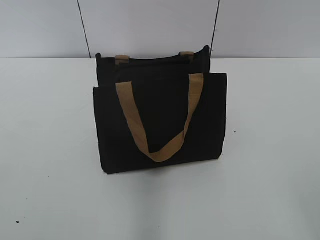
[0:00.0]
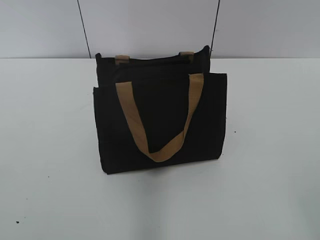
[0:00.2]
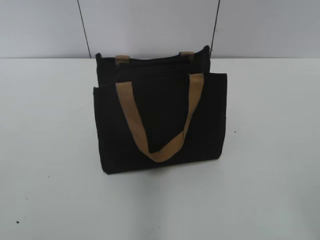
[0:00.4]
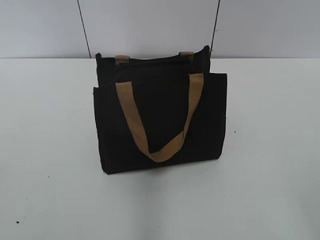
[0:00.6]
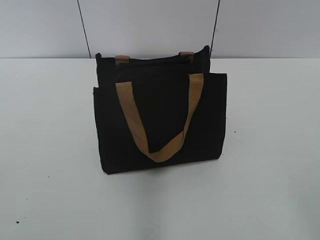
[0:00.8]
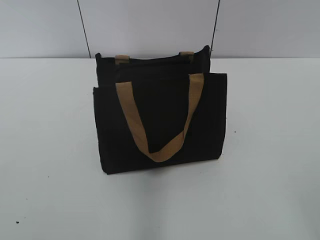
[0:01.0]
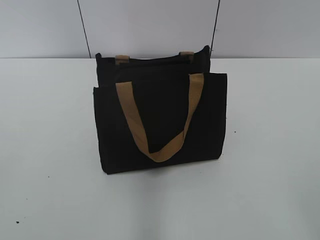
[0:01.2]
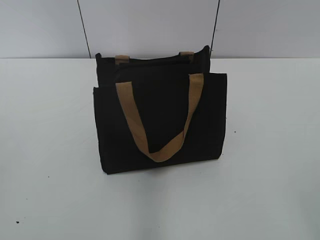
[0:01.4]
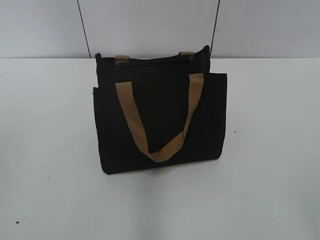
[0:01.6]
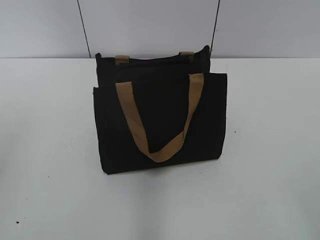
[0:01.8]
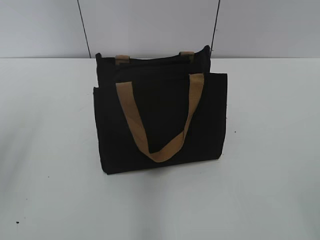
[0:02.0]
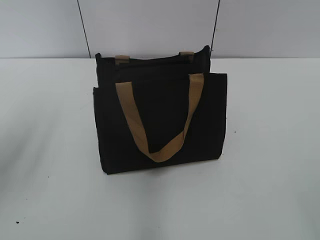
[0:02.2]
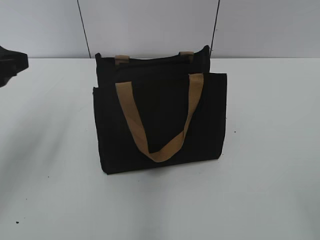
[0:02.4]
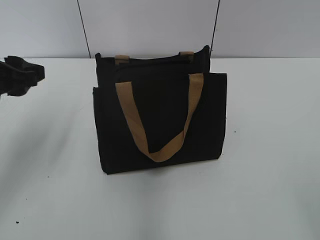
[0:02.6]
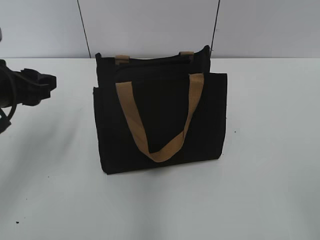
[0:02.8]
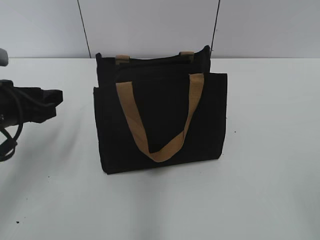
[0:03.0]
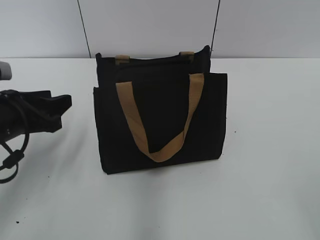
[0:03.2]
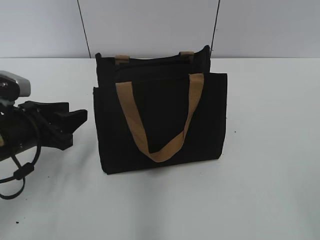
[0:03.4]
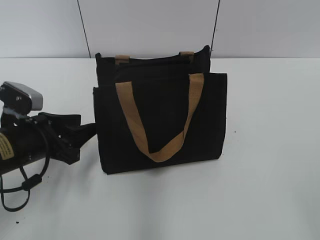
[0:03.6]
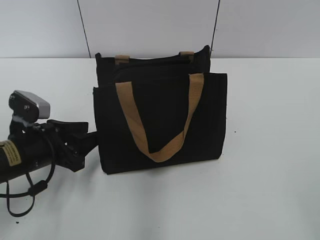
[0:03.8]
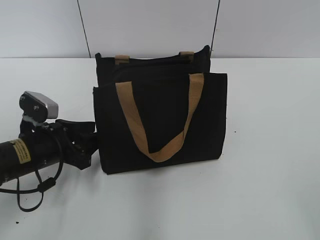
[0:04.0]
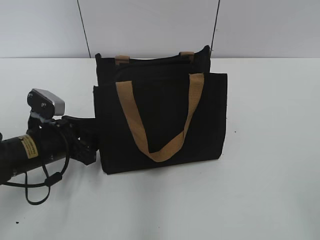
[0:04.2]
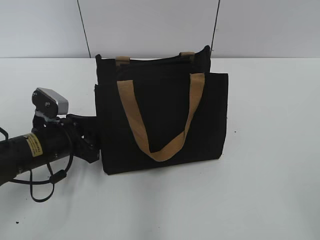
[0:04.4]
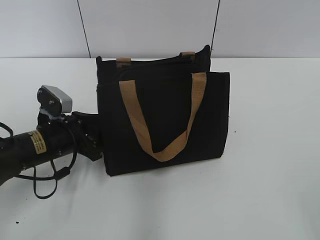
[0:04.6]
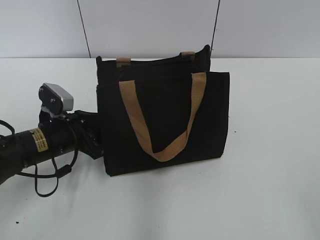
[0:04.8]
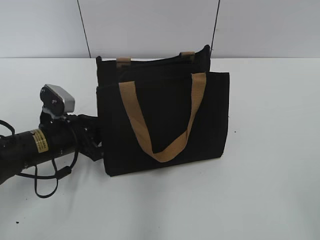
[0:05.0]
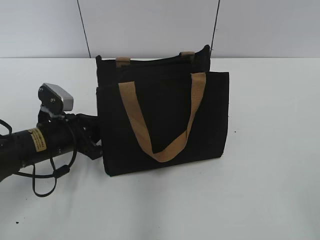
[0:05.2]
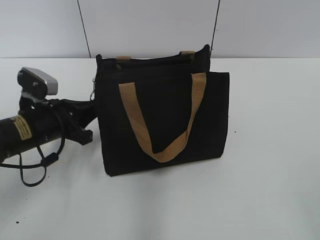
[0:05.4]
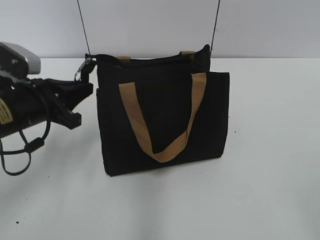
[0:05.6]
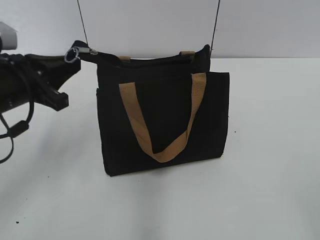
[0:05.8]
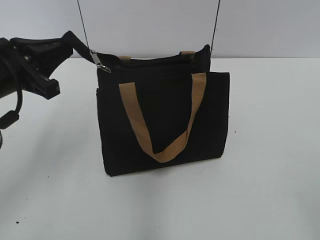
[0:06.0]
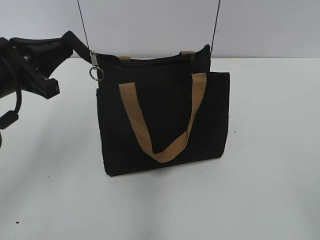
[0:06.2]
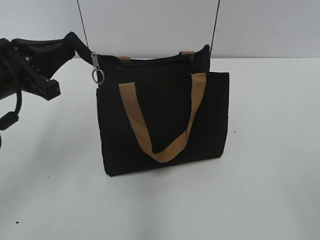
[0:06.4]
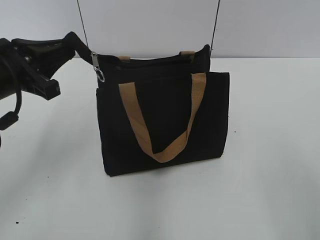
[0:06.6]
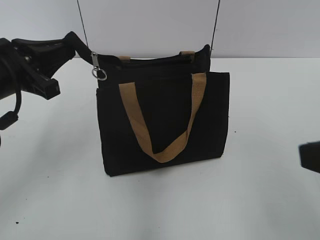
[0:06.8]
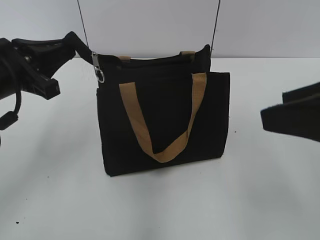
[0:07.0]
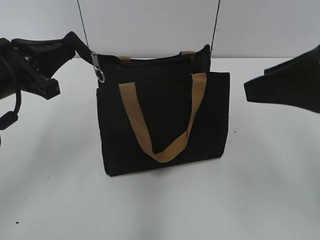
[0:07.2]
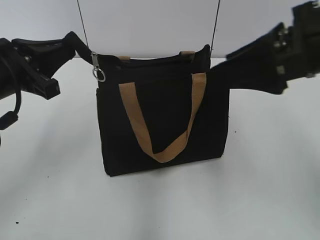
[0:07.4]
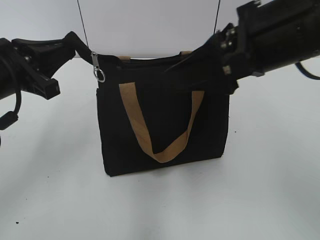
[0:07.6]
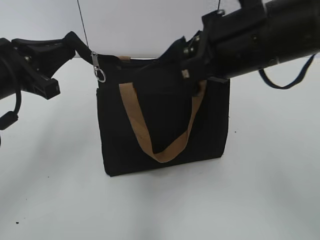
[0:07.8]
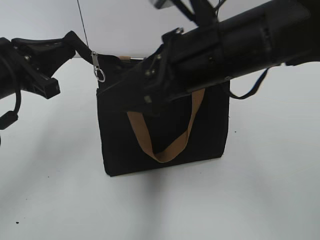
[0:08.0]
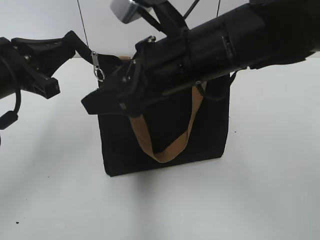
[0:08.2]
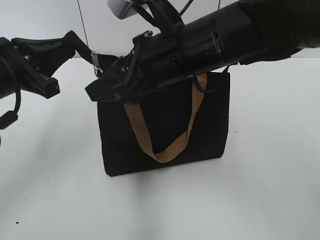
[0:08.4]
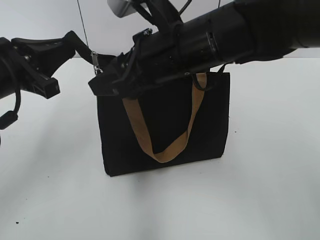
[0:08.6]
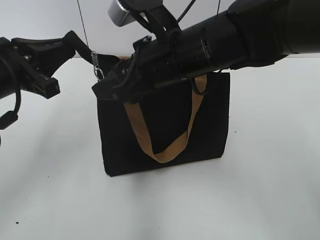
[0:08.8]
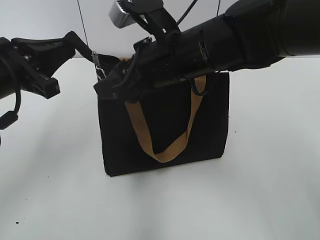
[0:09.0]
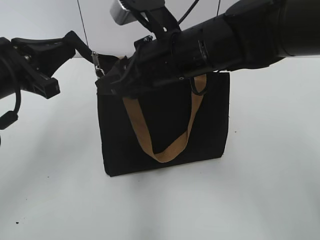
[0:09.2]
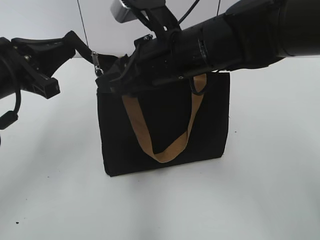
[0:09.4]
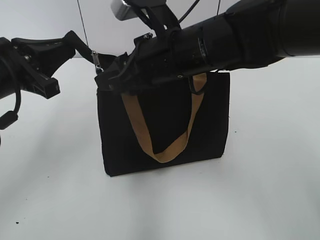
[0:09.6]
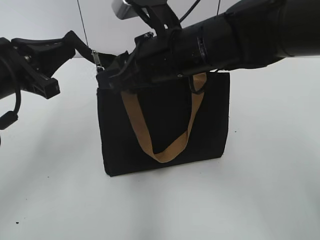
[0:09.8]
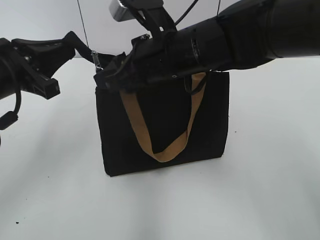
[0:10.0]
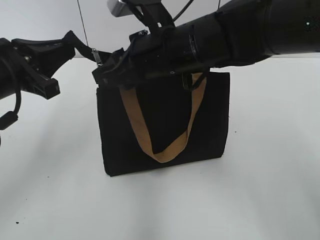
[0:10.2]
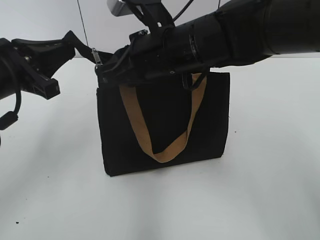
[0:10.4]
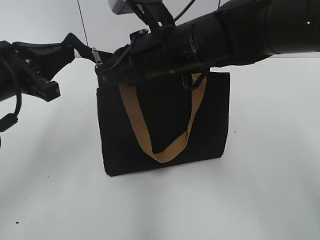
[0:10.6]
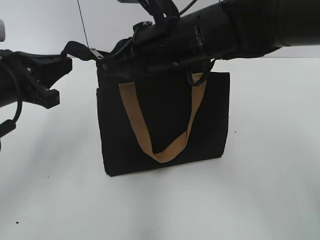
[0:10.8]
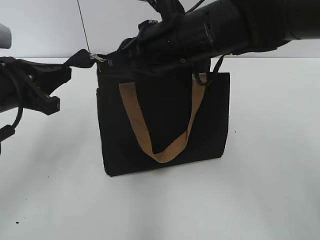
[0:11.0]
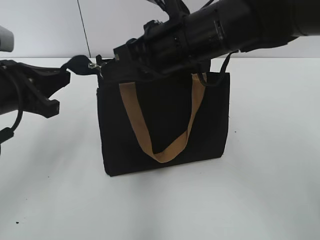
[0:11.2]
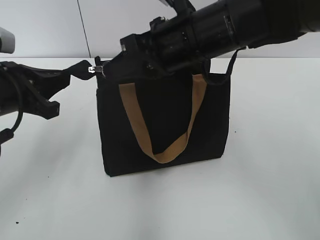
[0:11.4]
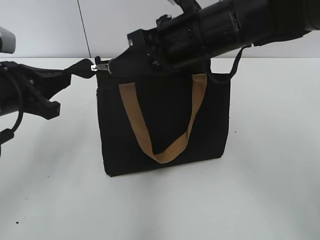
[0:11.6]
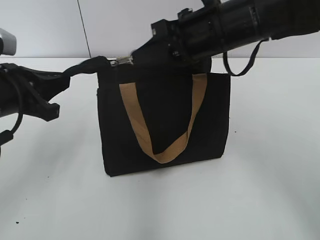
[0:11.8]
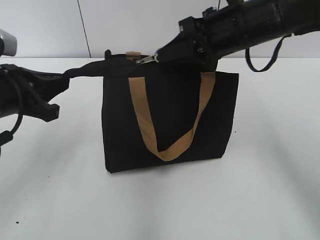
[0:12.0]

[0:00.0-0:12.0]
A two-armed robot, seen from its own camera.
0:01.6 to 0:03.0: The left gripper is displaced forward, downward and to the right by approximately 25 cm.
0:03.0 to 0:04.4: The left gripper is displaced downward by approximately 10 cm.
0:04.4 to 0:06.0: The left gripper is displaced upward by roughly 15 cm, and closes up.
0:06.0 to 0:07.6: The right gripper moves forward and to the left, roughly 30 cm.
0:07.6 to 0:09.0: The right gripper goes some 15 cm to the left, downward and forward.
0:09.0 to 0:10.4: The right gripper closes its fingers.
0:10.4 to 0:12.0: The right gripper shifts roughly 10 cm to the right.

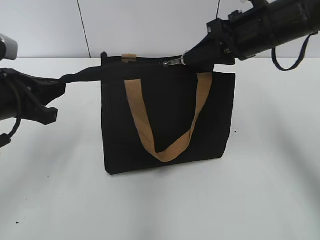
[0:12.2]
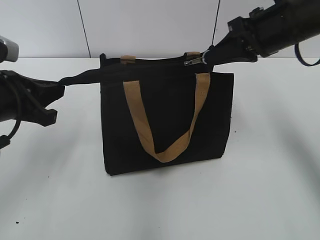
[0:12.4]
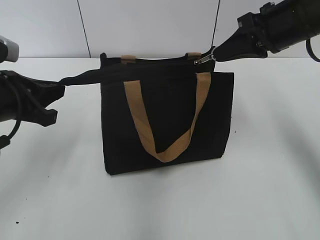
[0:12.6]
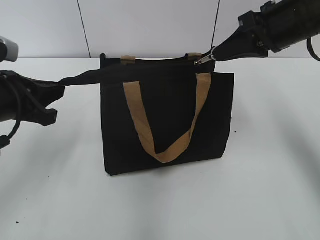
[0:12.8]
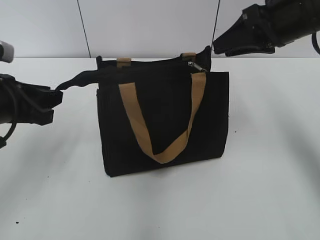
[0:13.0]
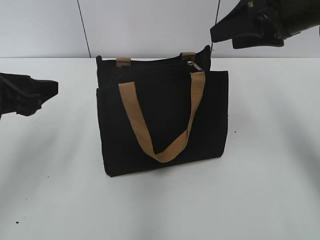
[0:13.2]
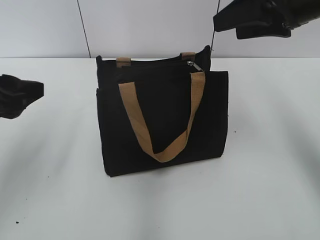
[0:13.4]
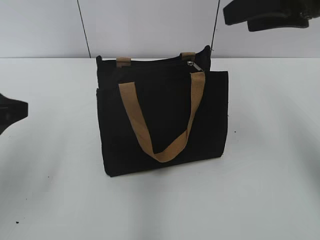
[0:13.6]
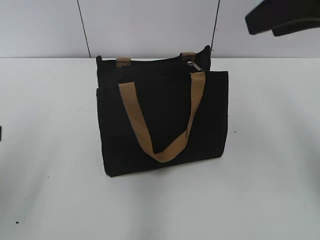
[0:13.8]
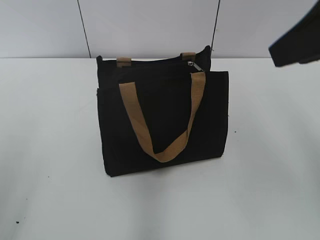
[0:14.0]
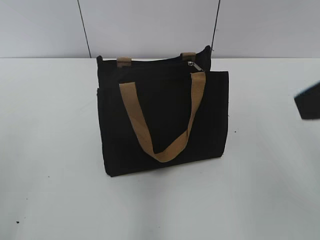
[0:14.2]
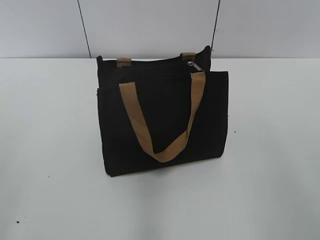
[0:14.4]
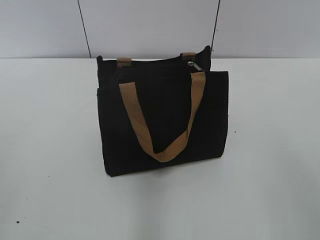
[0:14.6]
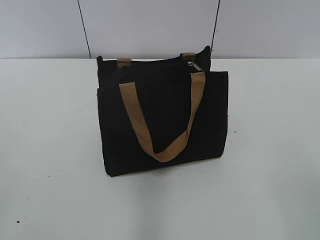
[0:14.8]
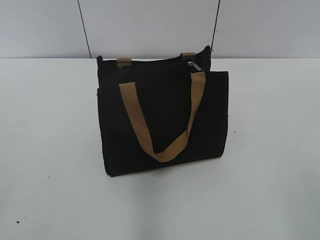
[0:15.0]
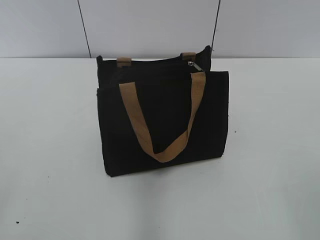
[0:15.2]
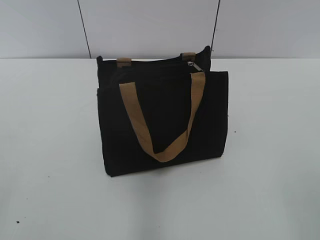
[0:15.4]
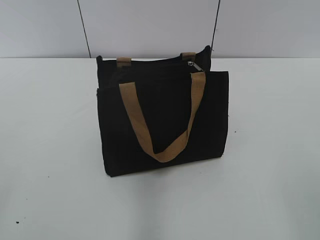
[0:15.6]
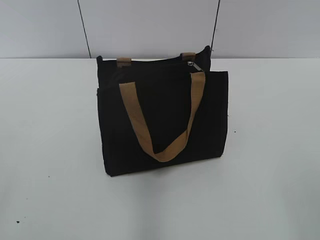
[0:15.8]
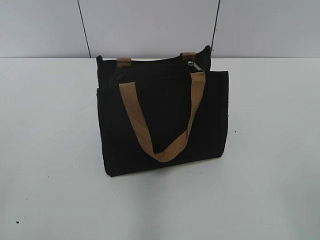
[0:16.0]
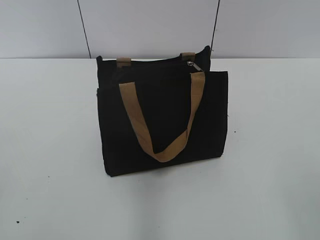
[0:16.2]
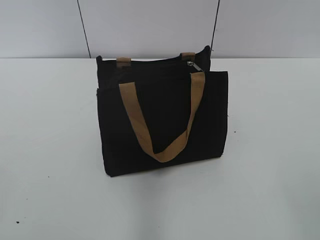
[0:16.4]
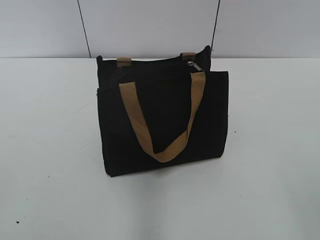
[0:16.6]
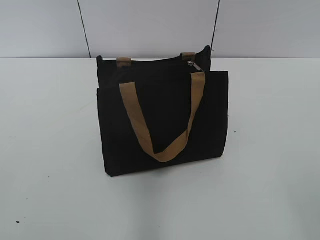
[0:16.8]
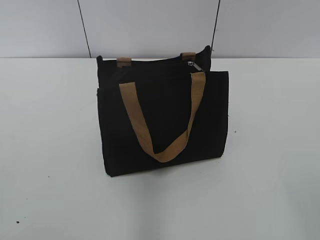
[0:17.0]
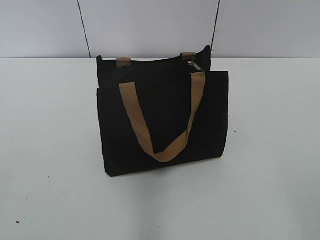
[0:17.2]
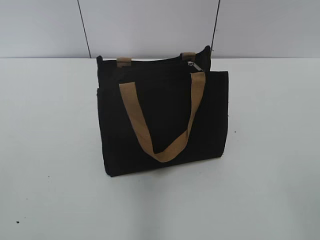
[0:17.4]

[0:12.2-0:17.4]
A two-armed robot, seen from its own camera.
0:12.2 to 0:14.0: The left gripper travels backward and upward by approximately 15 cm, and opens up; the right gripper is displaced backward, upward and to the right by roughly 20 cm, and opens its fingers.
0:14.0 to 0:15.6: The right gripper travels backward and downward by some 25 cm.

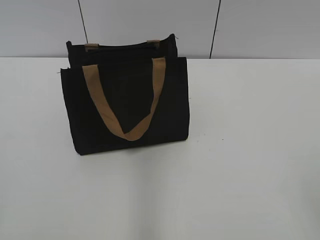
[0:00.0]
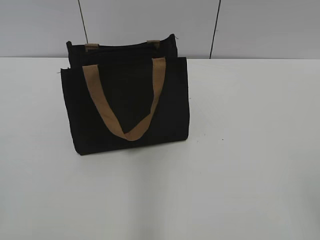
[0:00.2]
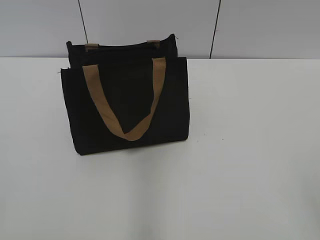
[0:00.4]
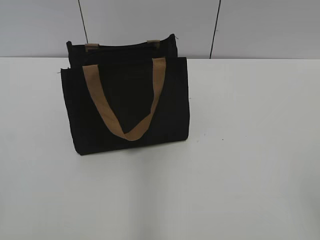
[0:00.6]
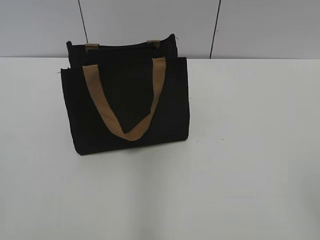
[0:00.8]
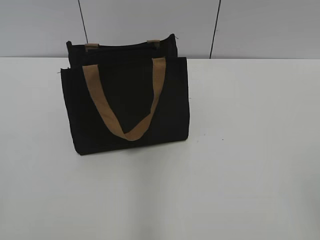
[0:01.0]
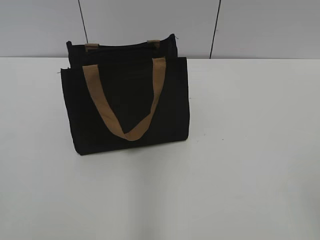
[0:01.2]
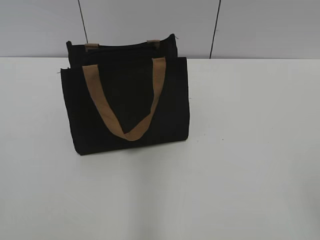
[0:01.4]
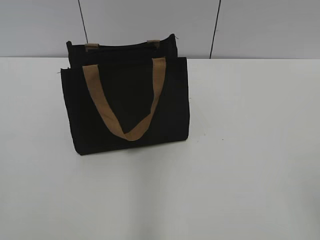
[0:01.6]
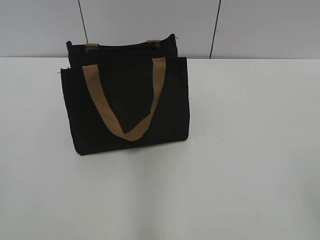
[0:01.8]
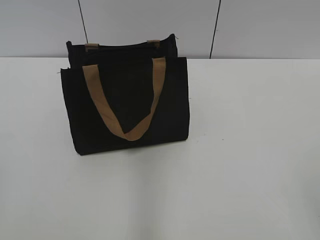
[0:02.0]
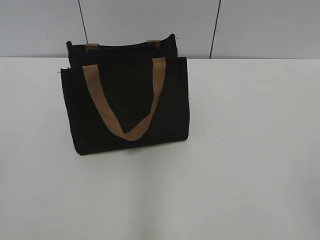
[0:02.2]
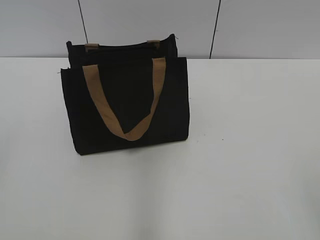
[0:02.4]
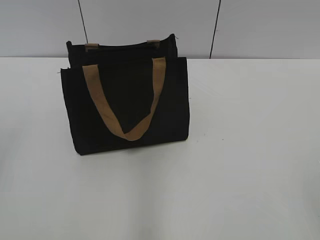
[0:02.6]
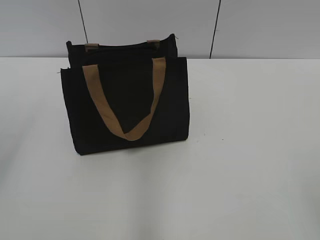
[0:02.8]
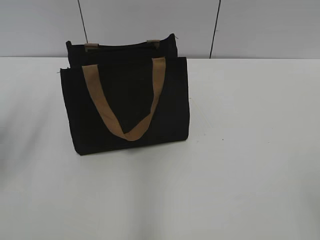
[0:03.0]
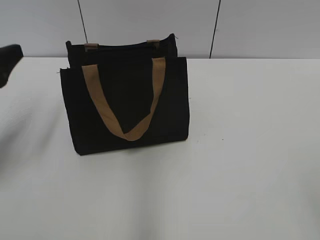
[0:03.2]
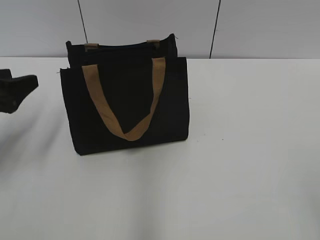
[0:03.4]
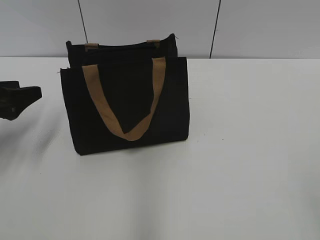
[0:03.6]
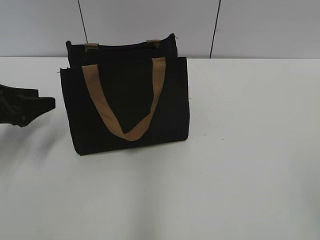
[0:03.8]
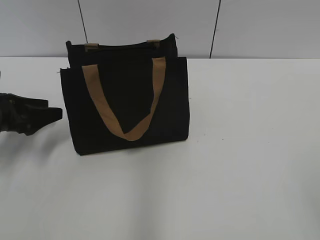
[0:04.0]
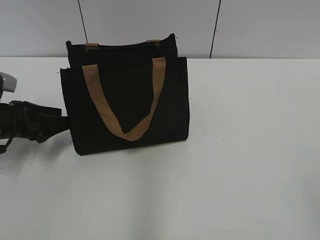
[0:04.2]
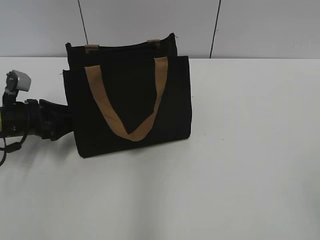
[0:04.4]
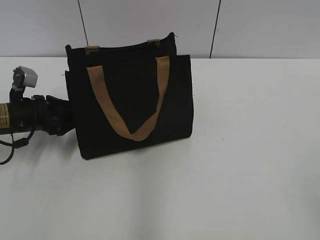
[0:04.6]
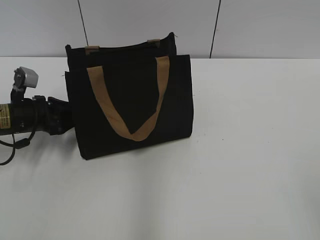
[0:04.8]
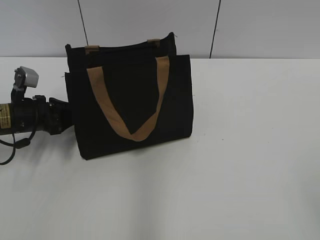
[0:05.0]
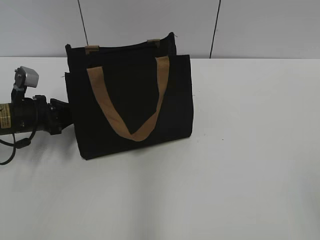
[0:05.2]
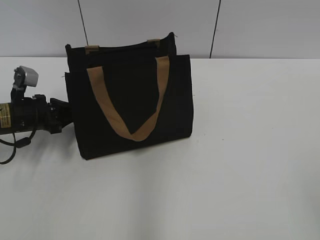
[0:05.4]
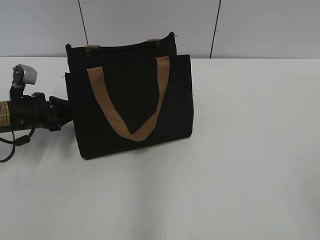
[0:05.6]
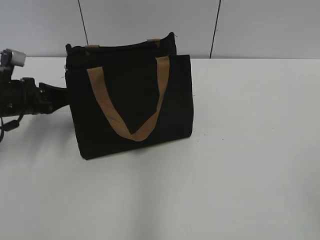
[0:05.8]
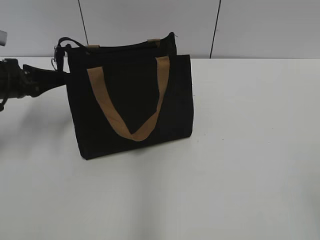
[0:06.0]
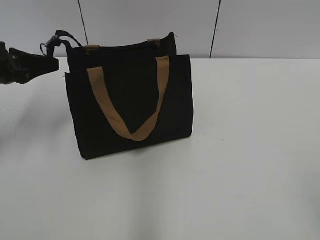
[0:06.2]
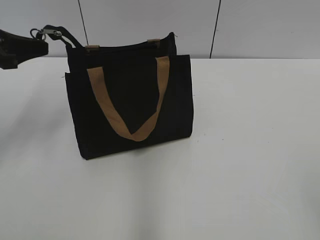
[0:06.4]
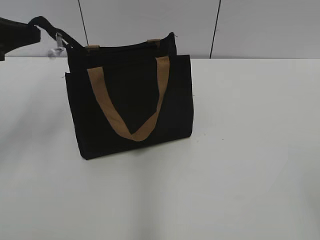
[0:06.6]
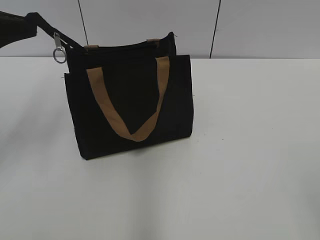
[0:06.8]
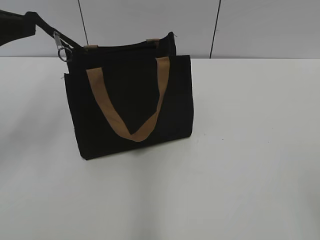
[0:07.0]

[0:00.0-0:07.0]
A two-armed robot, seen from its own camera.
0:02.8 to 0:04.2: The left gripper is displaced downward and forward by about 30 cm.
0:04.2 to 0:05.6: The left gripper closes its fingers.
0:05.6 to 0:07.0: The left gripper moves upward, approximately 20 cm.
